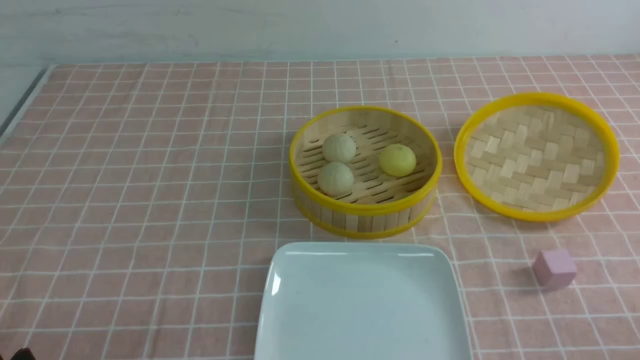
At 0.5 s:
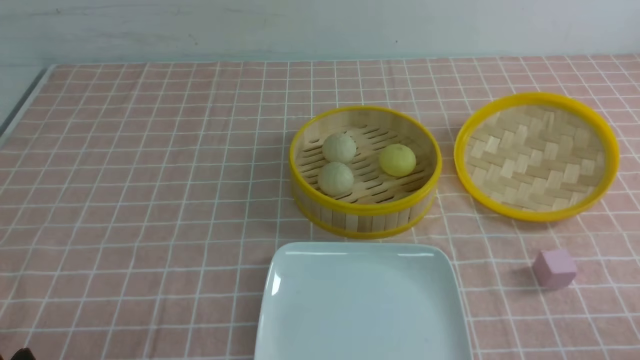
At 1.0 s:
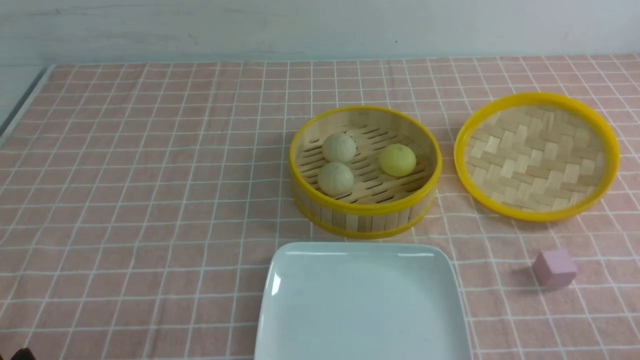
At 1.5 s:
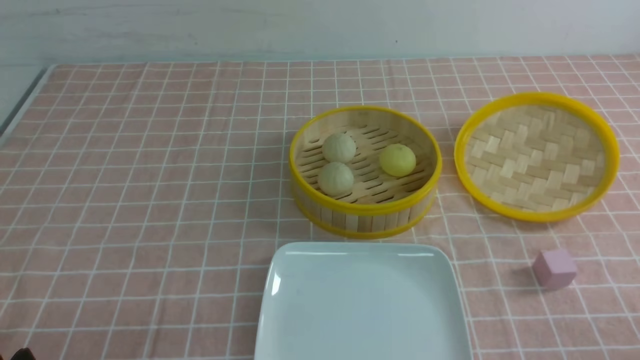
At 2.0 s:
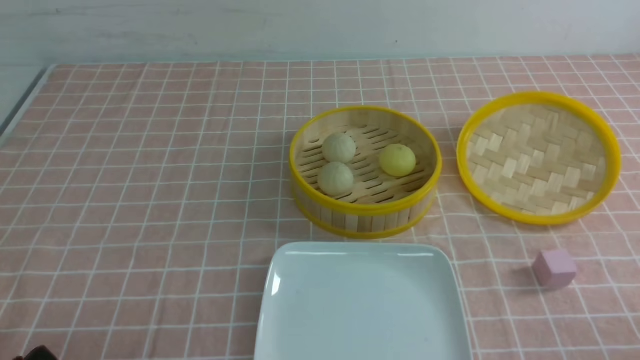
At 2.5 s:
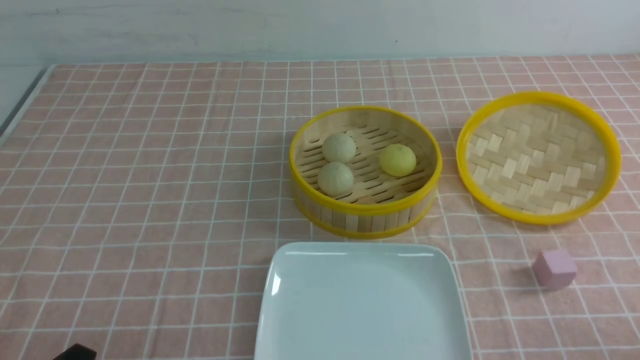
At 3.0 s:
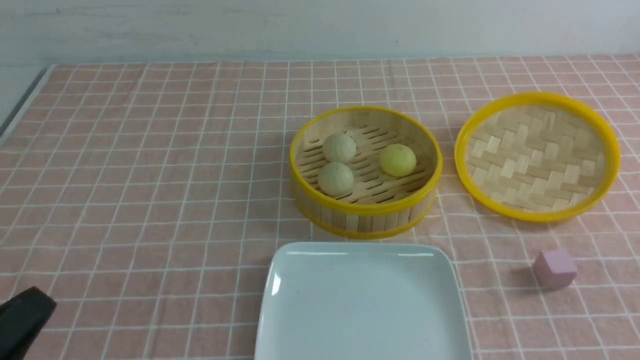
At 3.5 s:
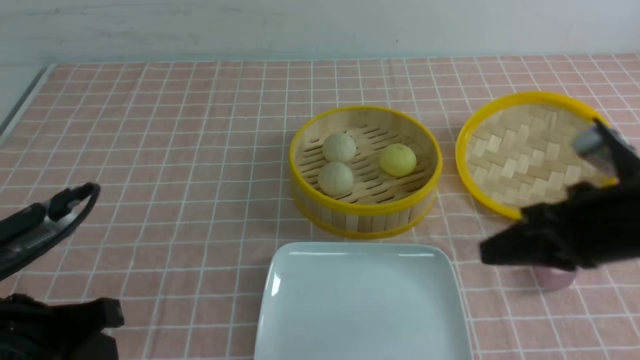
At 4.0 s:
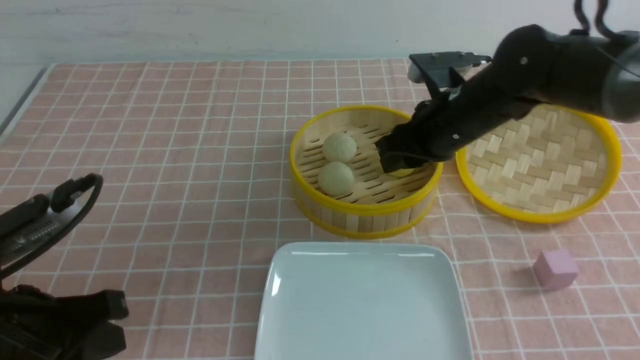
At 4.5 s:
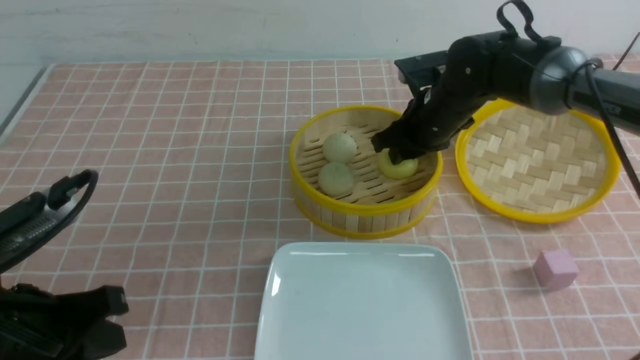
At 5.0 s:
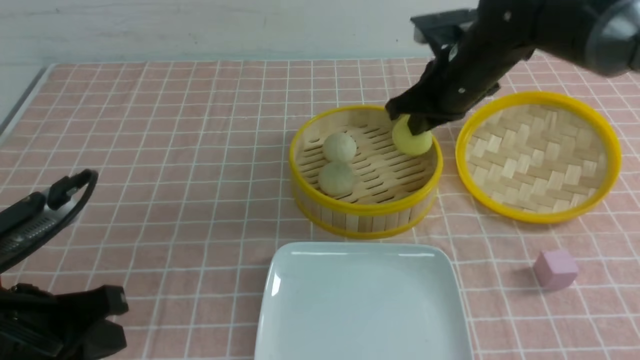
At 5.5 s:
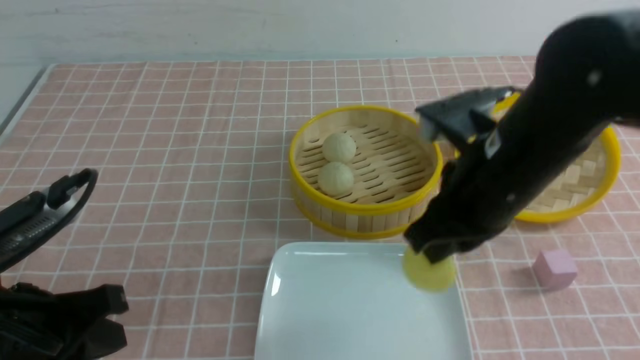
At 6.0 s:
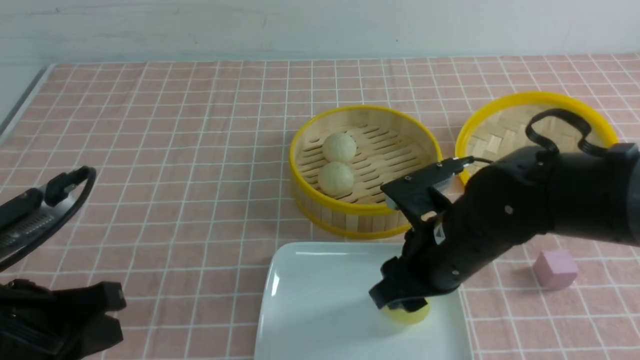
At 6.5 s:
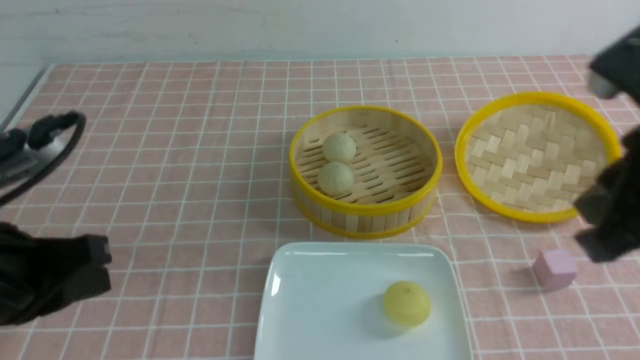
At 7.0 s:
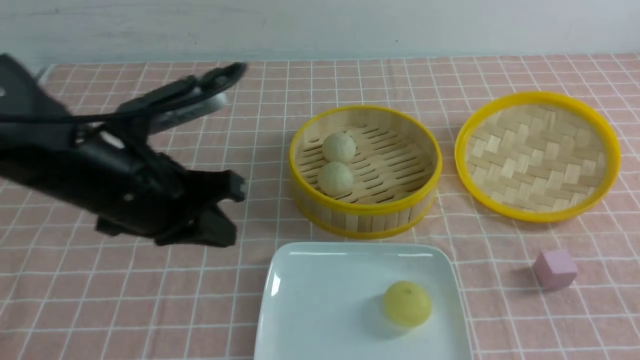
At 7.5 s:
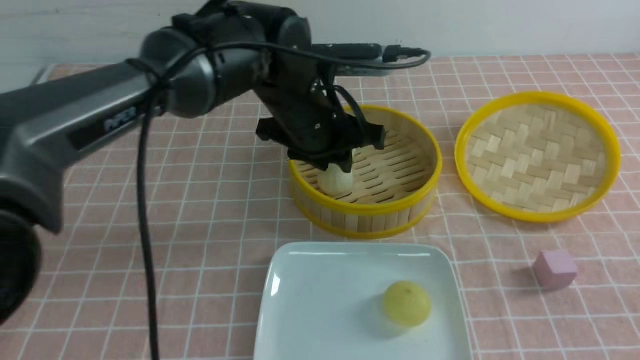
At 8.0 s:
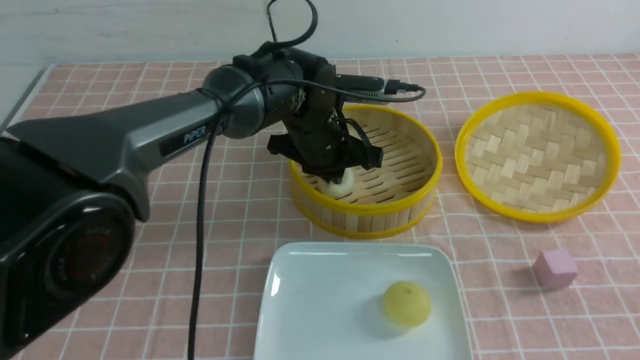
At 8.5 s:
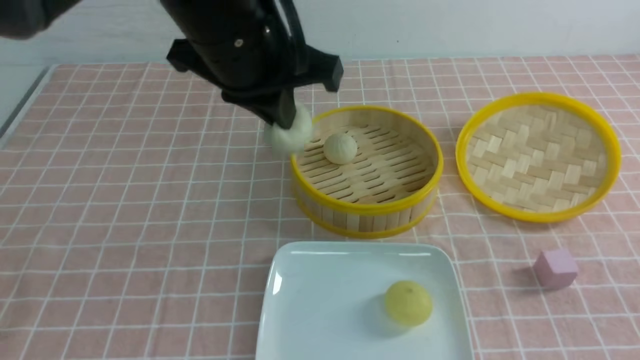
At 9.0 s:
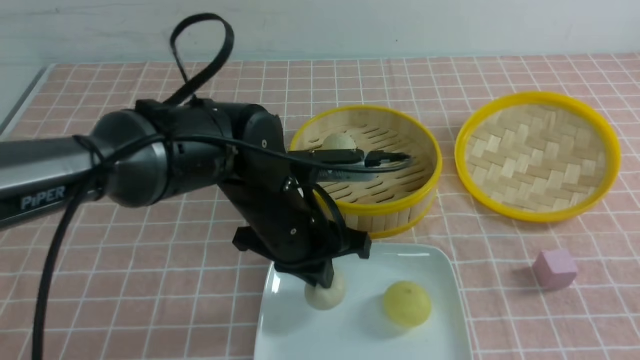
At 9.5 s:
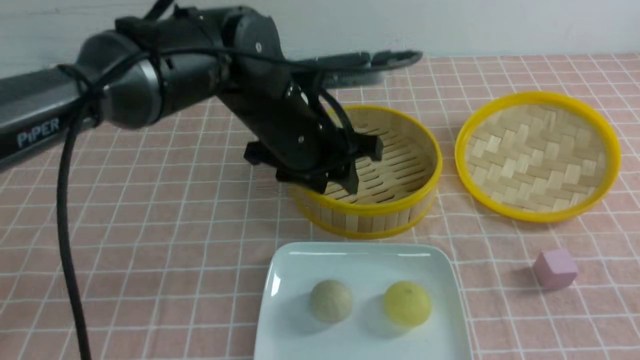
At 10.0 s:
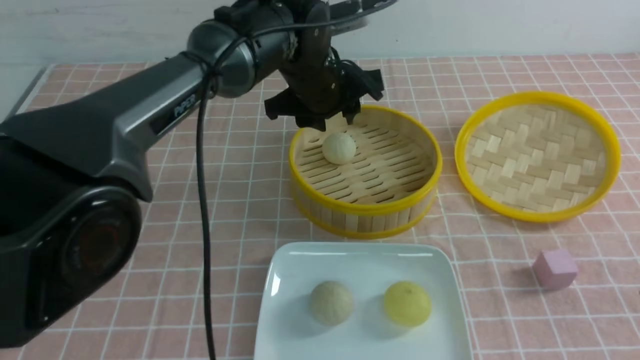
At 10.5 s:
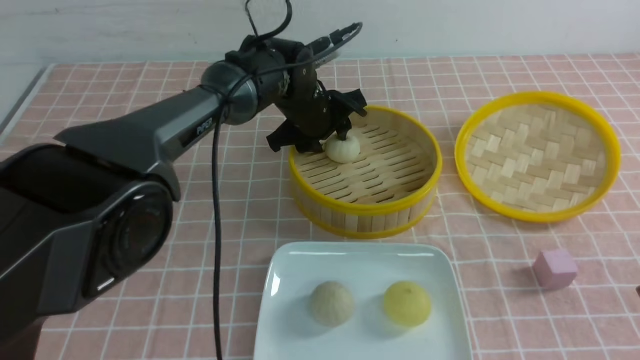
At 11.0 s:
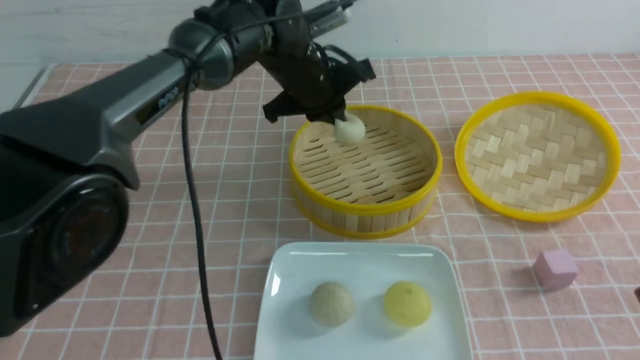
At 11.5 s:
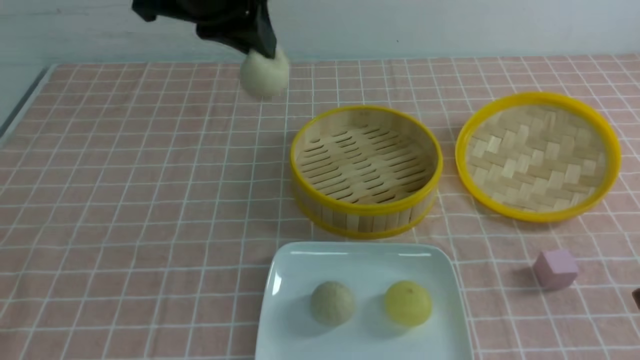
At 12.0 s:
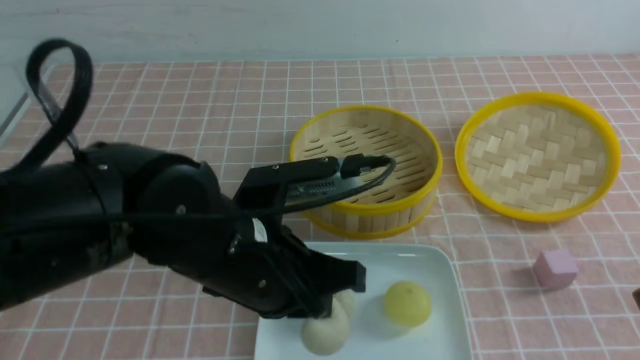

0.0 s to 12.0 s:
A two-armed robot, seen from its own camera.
Step, 0.0 to 4.5 s: use the right arm to grab the steamed stuffed bun that is closest to it.
Step, 5.0 to 6.0 s: use the right arm to put the steamed stuffed bun into the plate.
Step, 6.5 to 7.5 s: use the left arm to grab the steamed stuffed bun that is closest to it.
Step, 8.0 to 9.0 s: use the left arm to put the steamed stuffed bun into the plate.
Step, 9.5 to 10.5 s: use the left arm to grab the steamed stuffed bun that is closest to it.
2.0 to 4.0 s: The right gripper goes some 40 cm forward and to the left, and closes, then reopens; the left gripper travels forward and upward by some 10 cm, and closes.
4.0 to 6.0 s: The right gripper heads backward, covering some 15 cm, and closes, then opens again.
6.0 to 8.0 s: The left gripper heads forward and to the right, covering roughly 35 cm, and opens, then closes once more. Meanwhile the right gripper moves to the right, backward and upward, approximately 25 cm, and closes up.
8.0 to 10.0 s: The left gripper moves some 10 cm backward and comes back, and opens its fingers.
10.0 to 12.0 s: The left gripper moves backward, about 20 cm, and closes.

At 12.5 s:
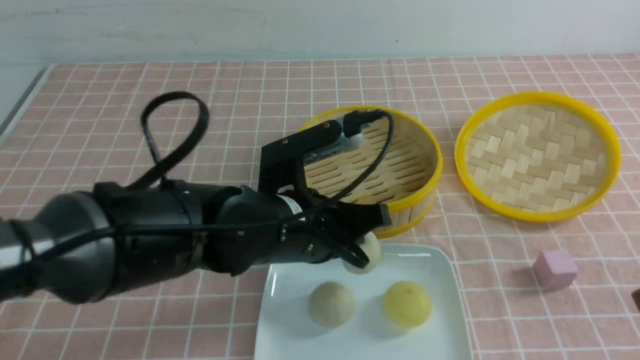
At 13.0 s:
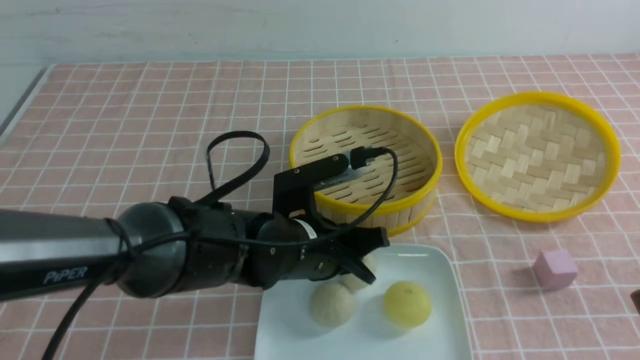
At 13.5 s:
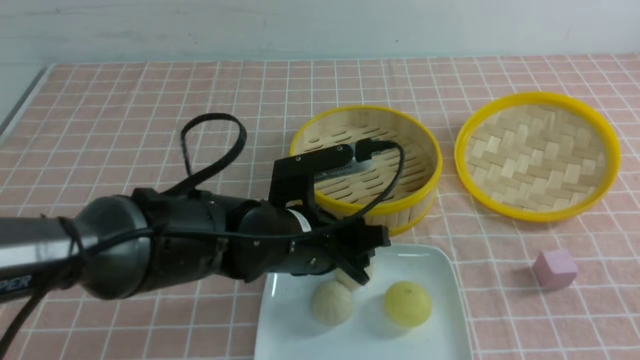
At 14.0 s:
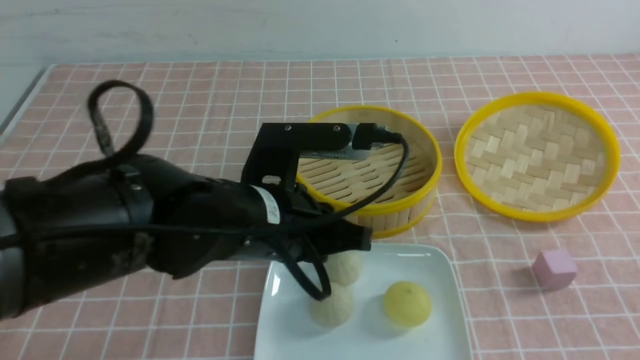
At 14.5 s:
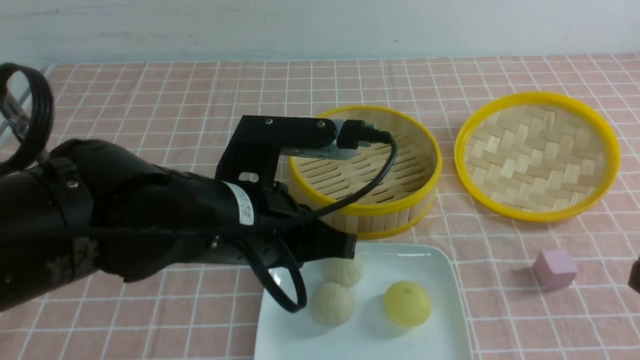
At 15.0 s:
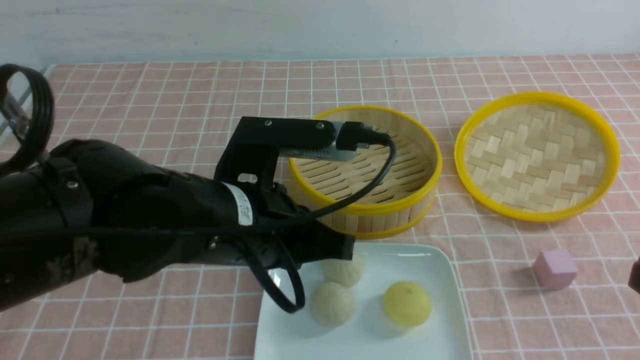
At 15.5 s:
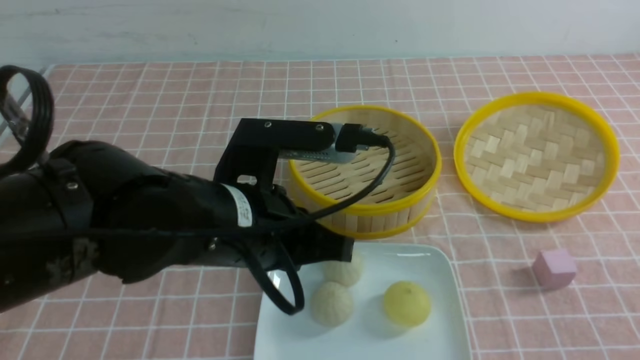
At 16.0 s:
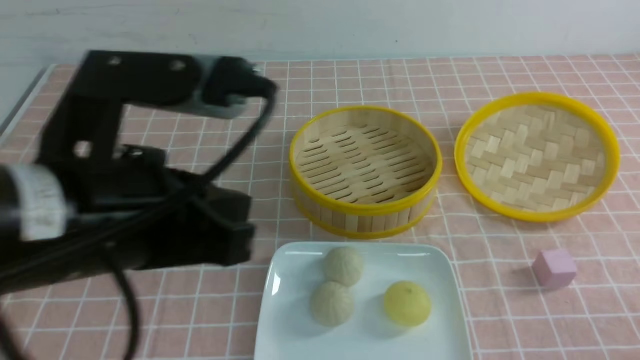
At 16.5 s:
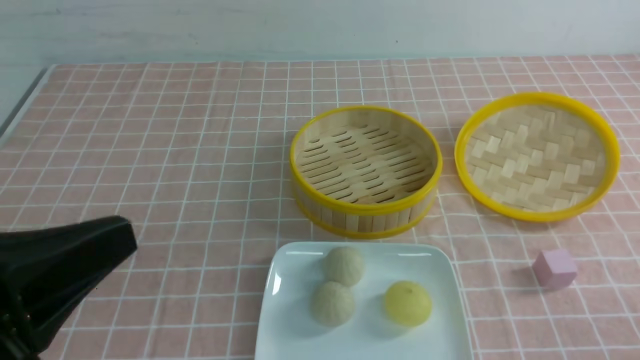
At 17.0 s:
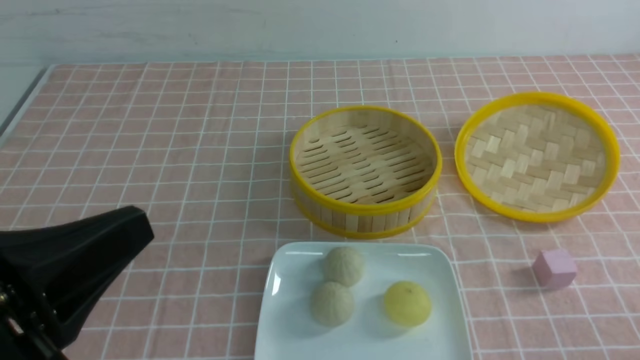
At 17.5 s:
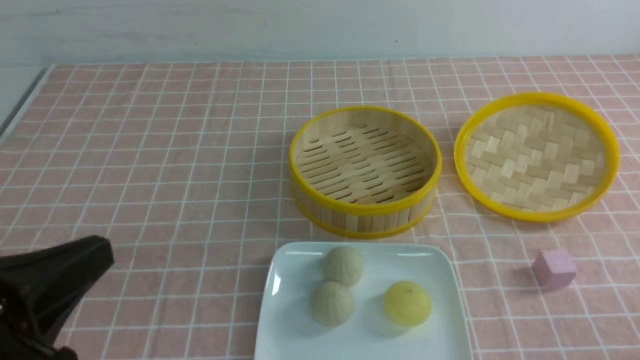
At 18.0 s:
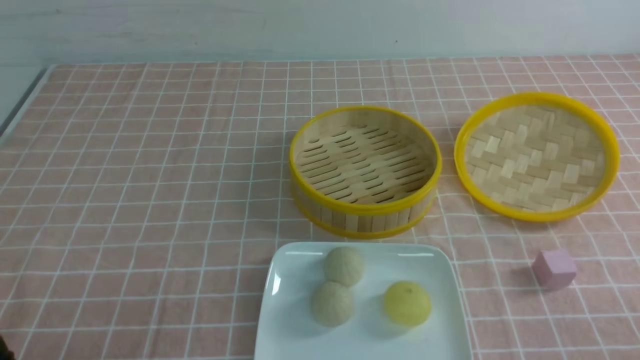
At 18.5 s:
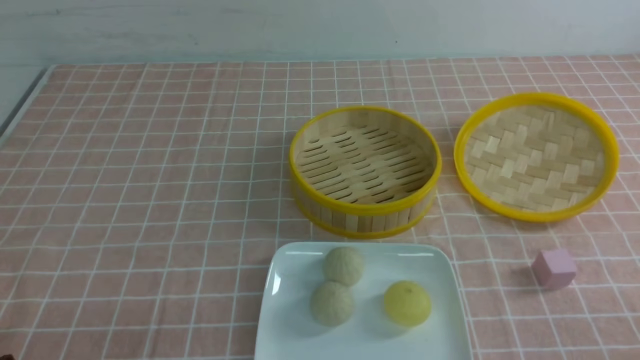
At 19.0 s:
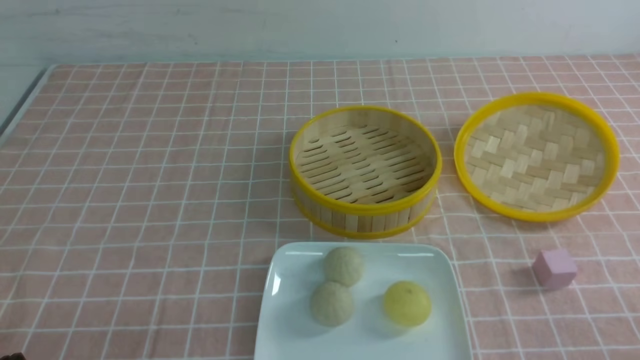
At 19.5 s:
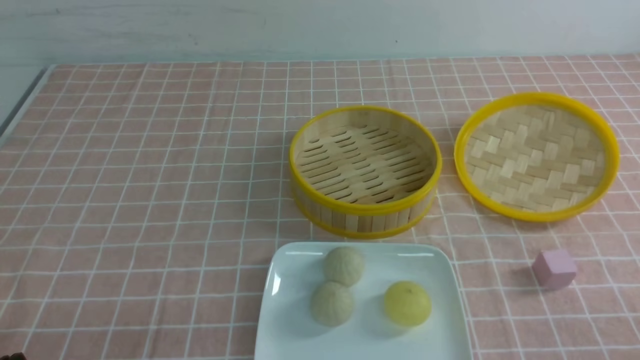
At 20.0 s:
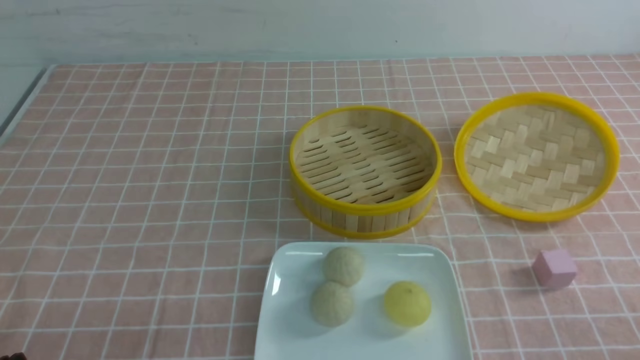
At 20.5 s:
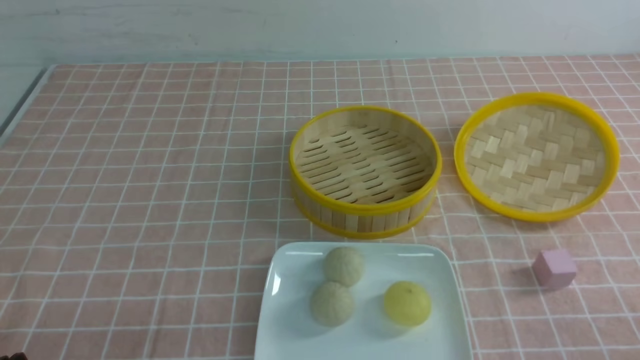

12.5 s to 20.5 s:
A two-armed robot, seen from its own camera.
12.5 to 14.5 s: The right gripper closes its fingers. The left gripper heads upward, covering roughly 5 cm, and opens, then closes once more.
14.5 to 16.5 s: The left gripper moves backward, to the left and upward, some 20 cm, while the right gripper goes about 15 cm downward.
16.5 to 18.5 s: The left gripper heads downward, covering some 20 cm.
18.5 to 20.5 s: The two grippers keep their place.
